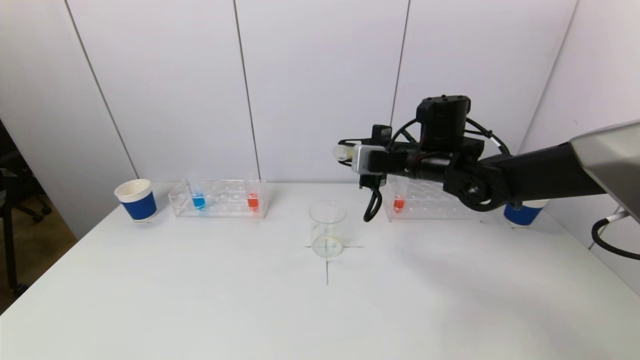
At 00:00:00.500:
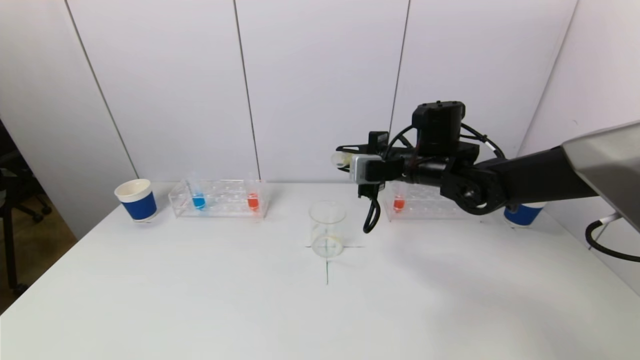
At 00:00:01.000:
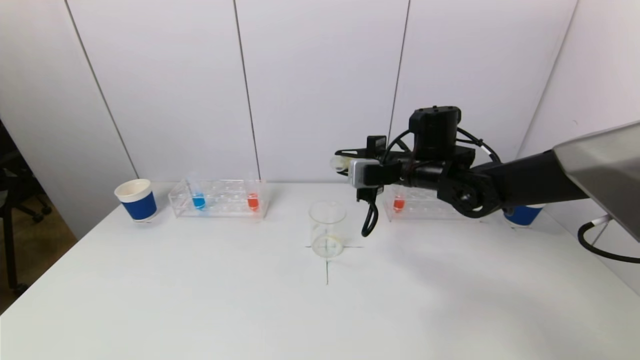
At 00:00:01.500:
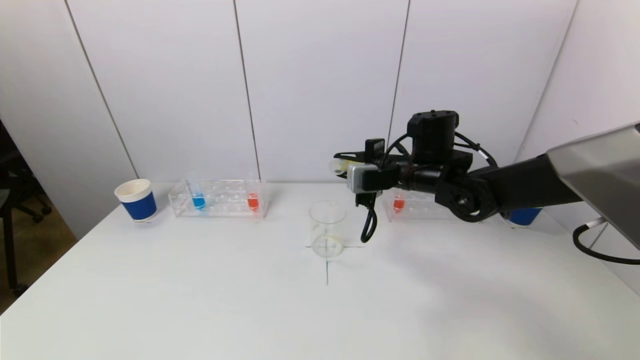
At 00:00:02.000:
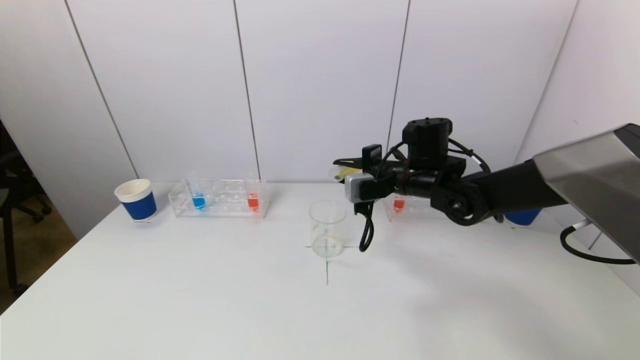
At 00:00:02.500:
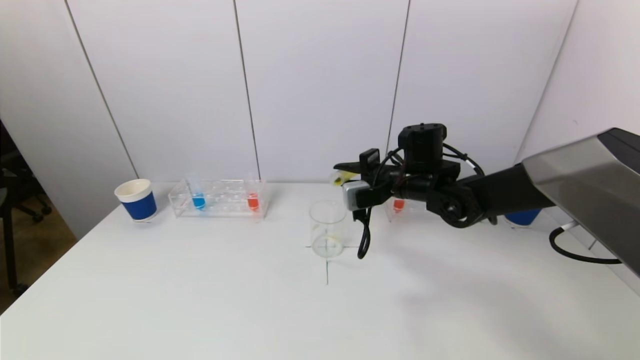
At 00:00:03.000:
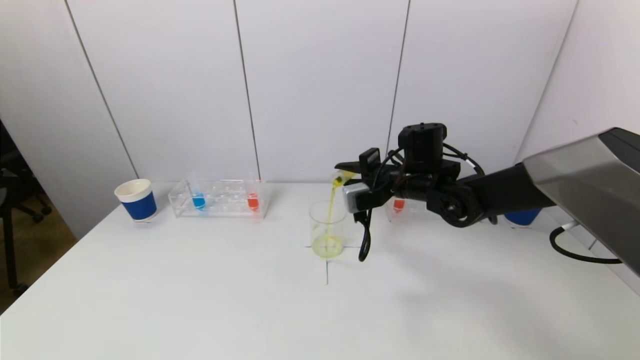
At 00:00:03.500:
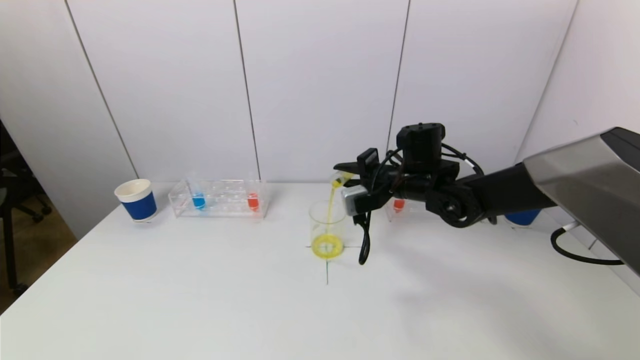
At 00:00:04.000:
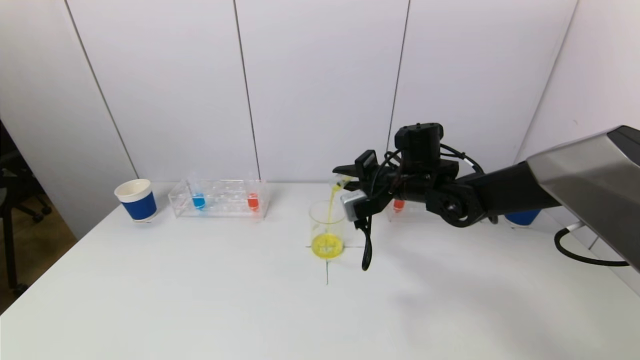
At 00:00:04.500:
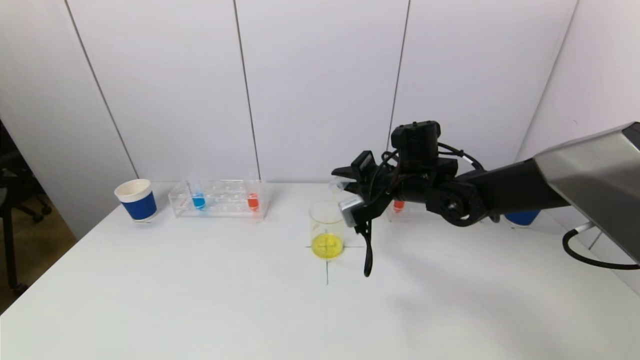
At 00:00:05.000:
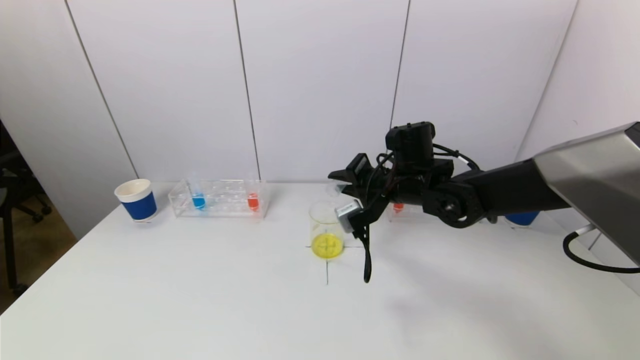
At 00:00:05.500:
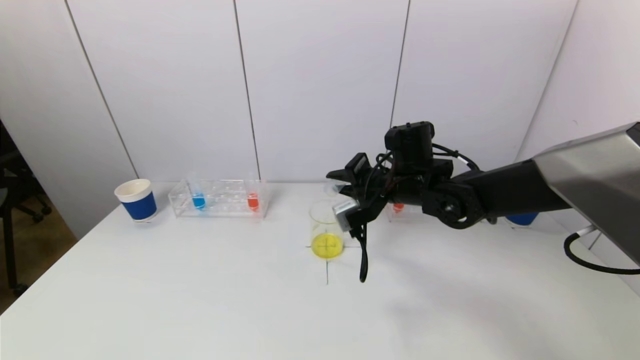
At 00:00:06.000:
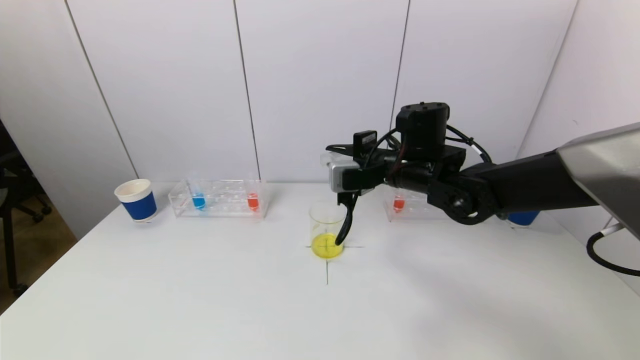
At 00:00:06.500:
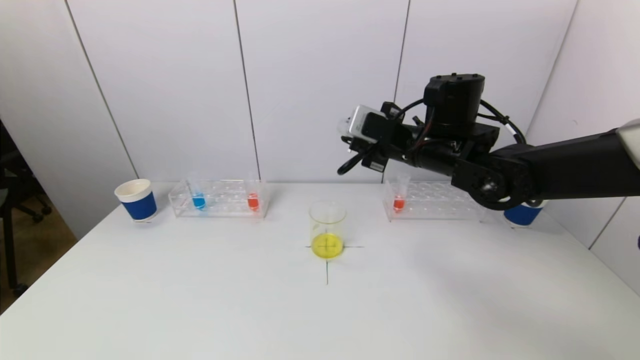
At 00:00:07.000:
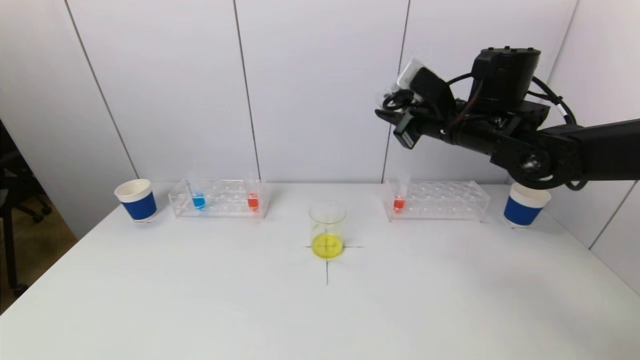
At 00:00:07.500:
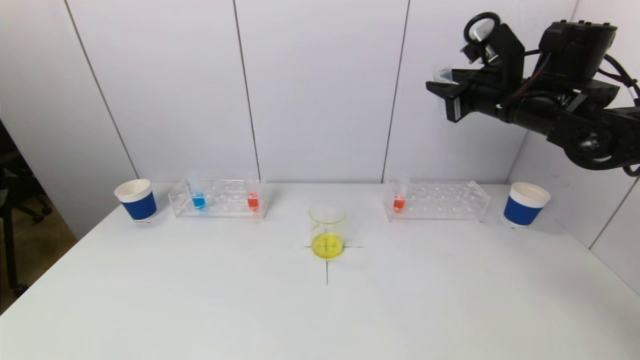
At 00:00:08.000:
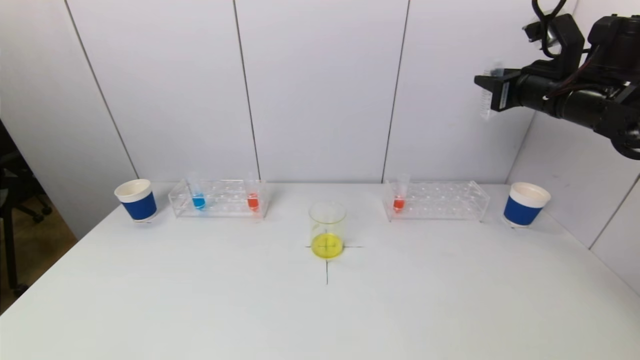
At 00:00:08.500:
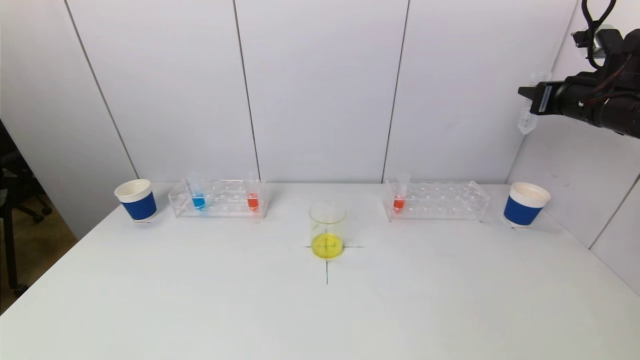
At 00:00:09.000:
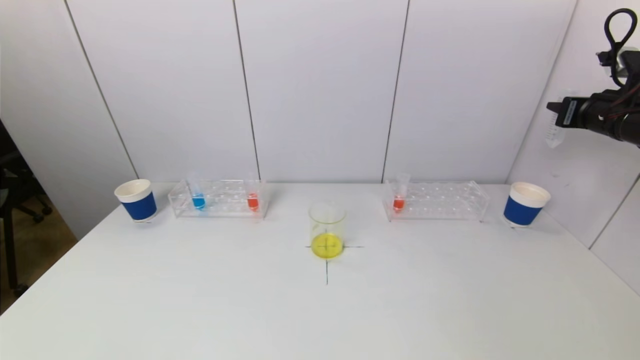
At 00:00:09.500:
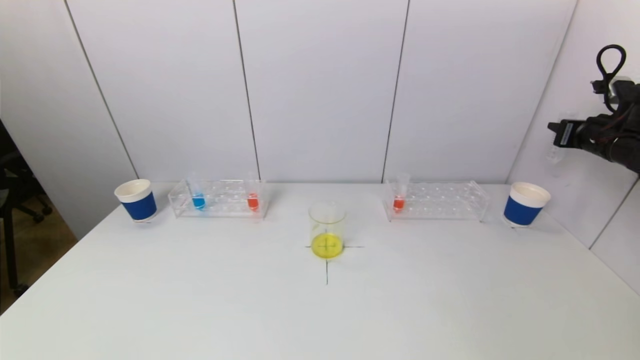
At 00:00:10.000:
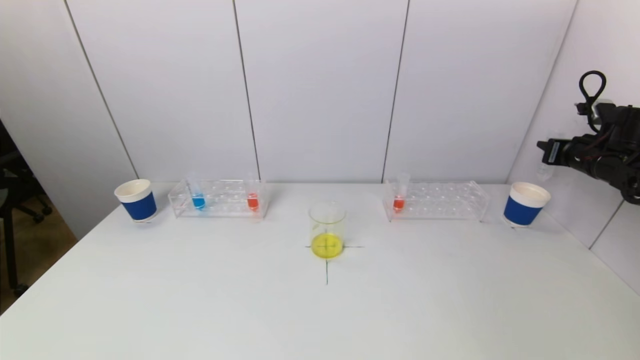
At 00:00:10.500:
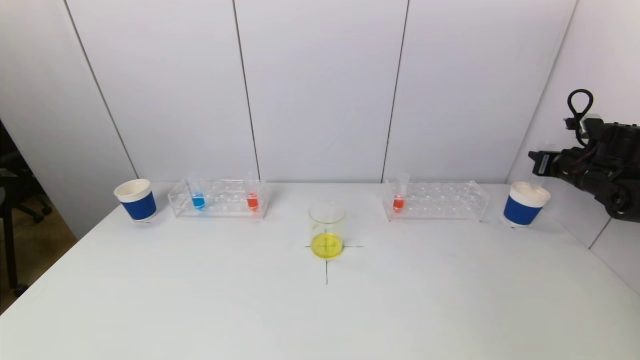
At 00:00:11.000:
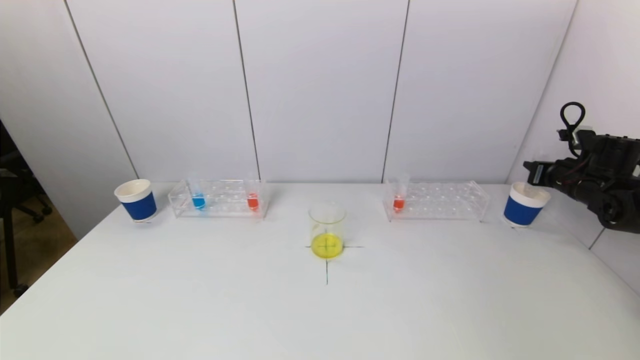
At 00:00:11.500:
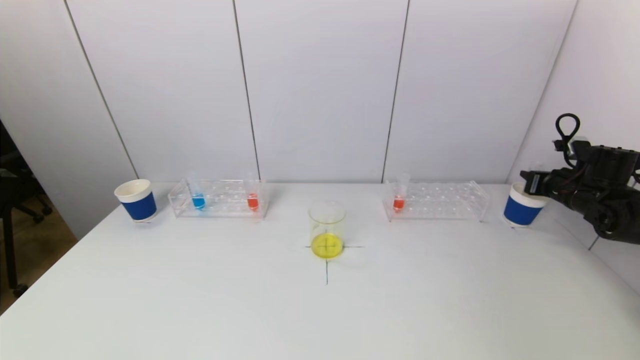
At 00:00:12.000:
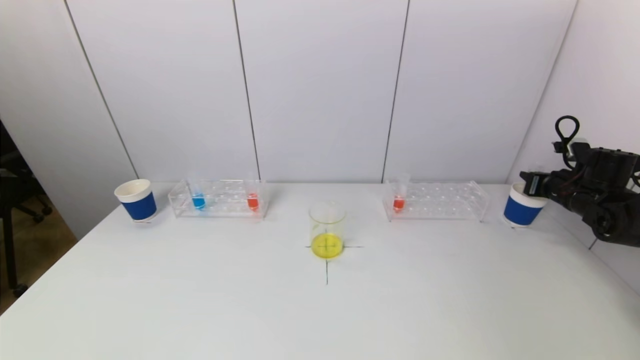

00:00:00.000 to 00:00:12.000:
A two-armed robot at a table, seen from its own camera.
Task of the whole recording: pick up a test tube with pigment on left test tube rack and a test tube with pigment on right test tube rack by grippers and pour them into the beaker.
Step, 00:00:00.000 to 00:00:05.500: Pour the yellow reagent into the graduated cylinder with the right gripper.
00:00:00.000 to 00:00:02.000: There are only small adjustments of the grippers.
00:00:02.000 to 00:00:04.000: The grippers stay close to where they were, moving slightly.
00:00:04.000 to 00:00:06.000: The right gripper moves roughly 5 cm.
00:00:06.000 to 00:00:08.000: The right gripper heads to the right and upward, covering roughly 25 cm.
00:00:08.000 to 00:00:10.000: The right gripper is displaced to the right and downward by some 20 cm.
00:00:10.000 to 00:00:12.000: The right gripper is displaced downward by about 5 cm.

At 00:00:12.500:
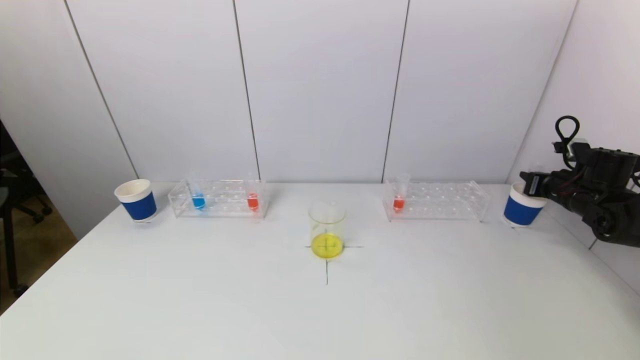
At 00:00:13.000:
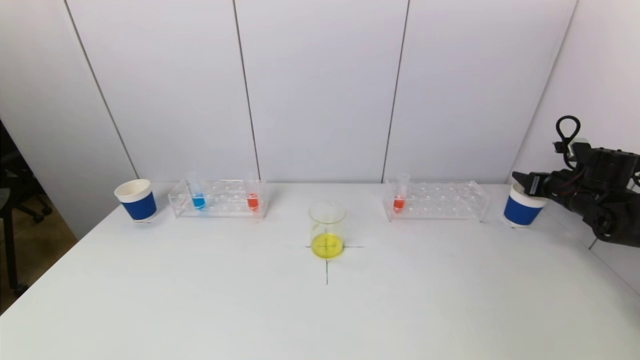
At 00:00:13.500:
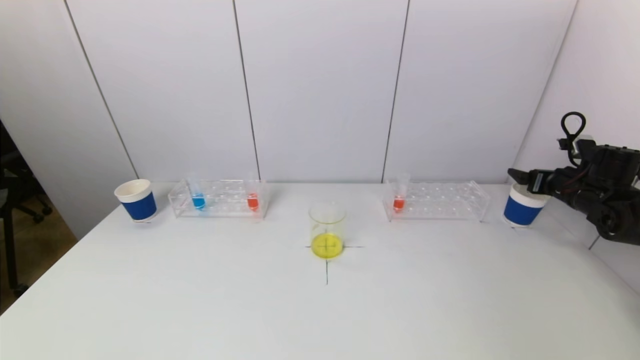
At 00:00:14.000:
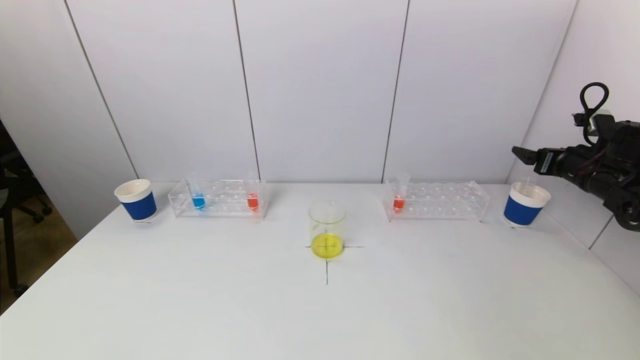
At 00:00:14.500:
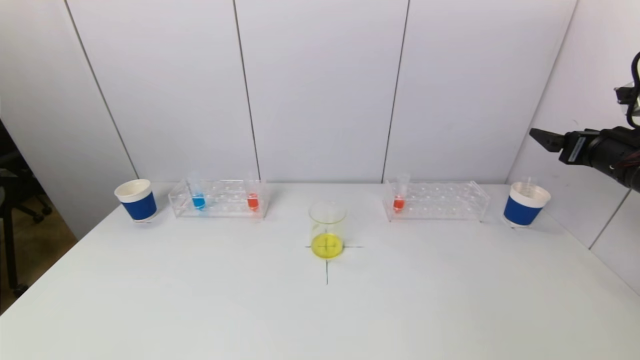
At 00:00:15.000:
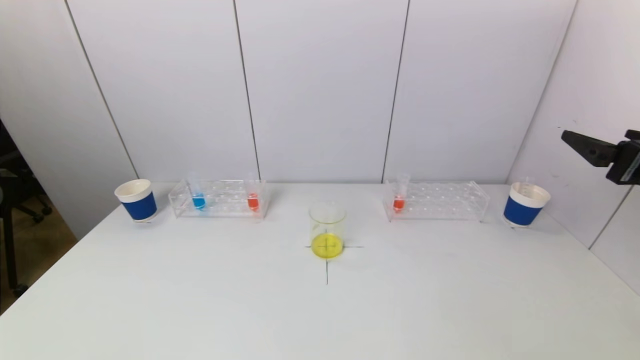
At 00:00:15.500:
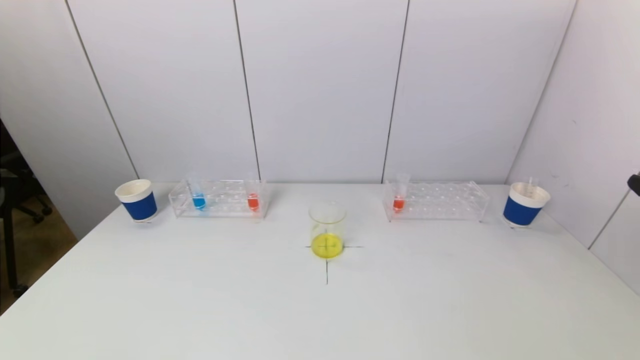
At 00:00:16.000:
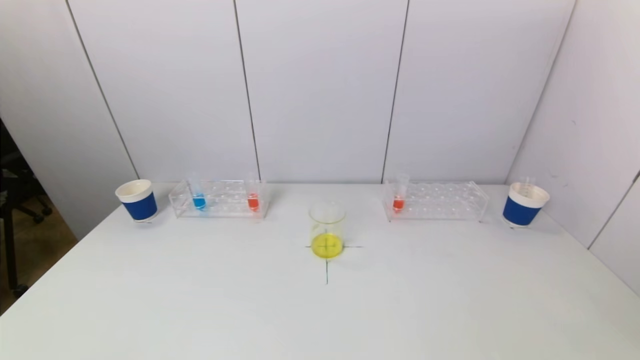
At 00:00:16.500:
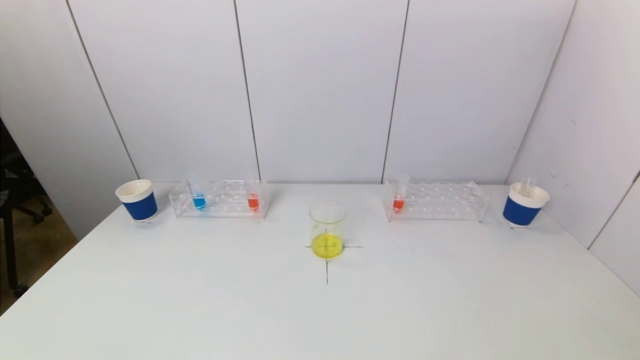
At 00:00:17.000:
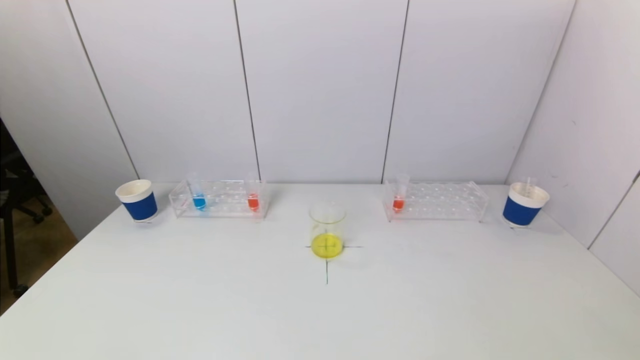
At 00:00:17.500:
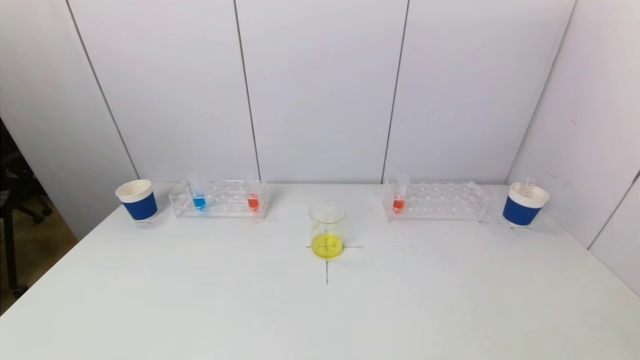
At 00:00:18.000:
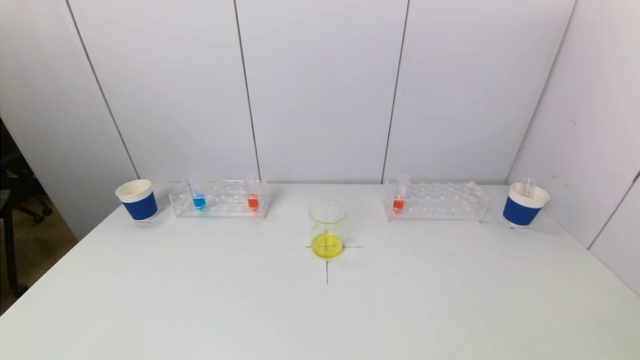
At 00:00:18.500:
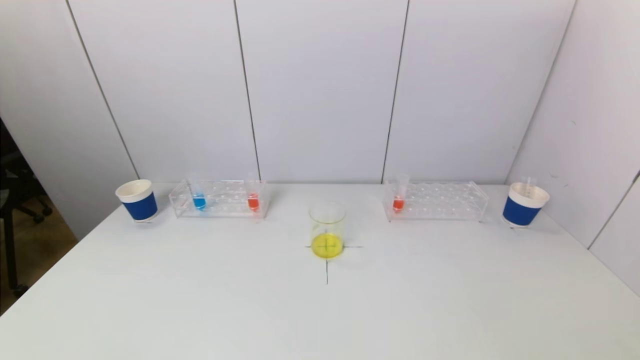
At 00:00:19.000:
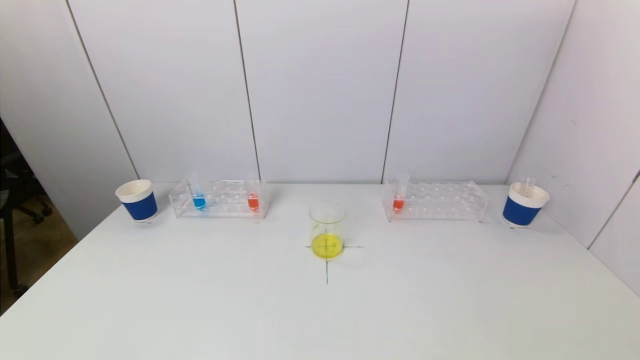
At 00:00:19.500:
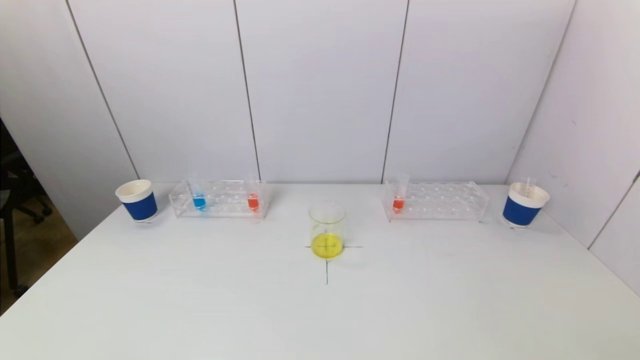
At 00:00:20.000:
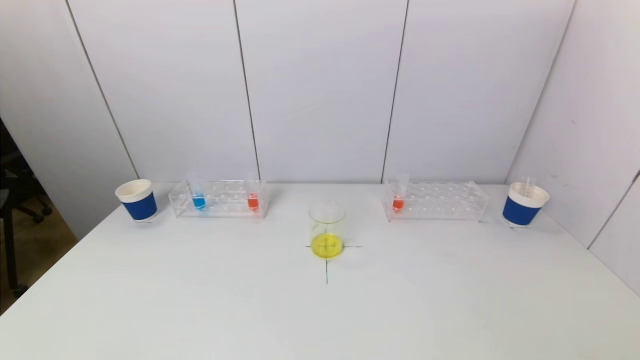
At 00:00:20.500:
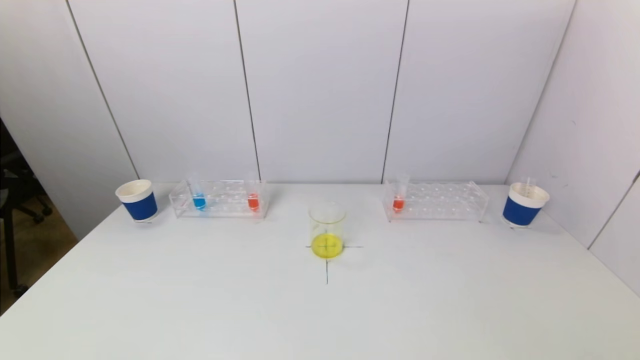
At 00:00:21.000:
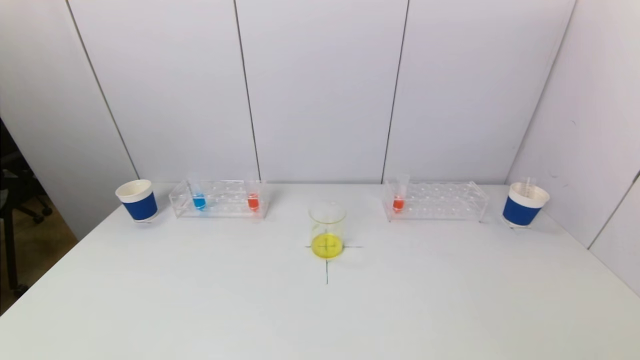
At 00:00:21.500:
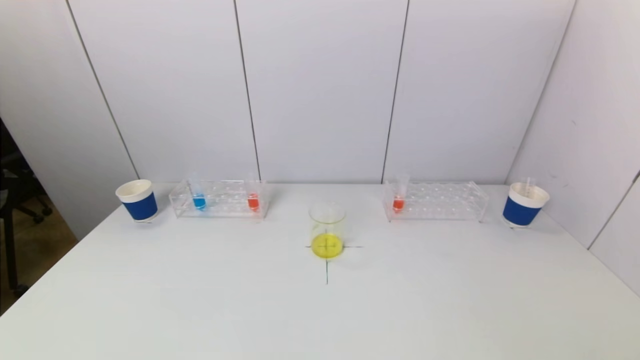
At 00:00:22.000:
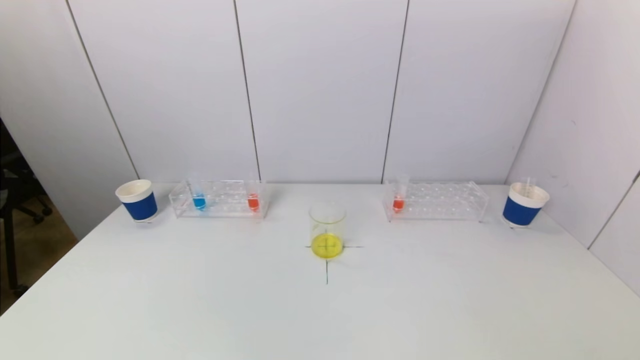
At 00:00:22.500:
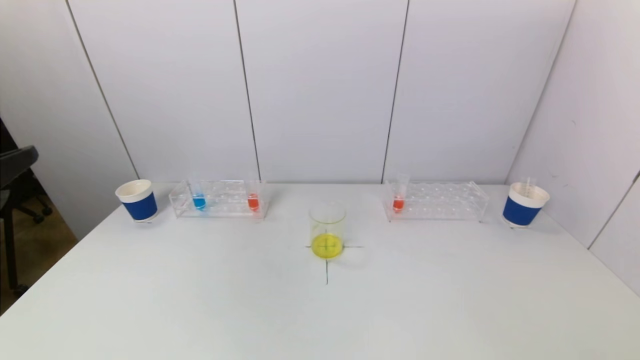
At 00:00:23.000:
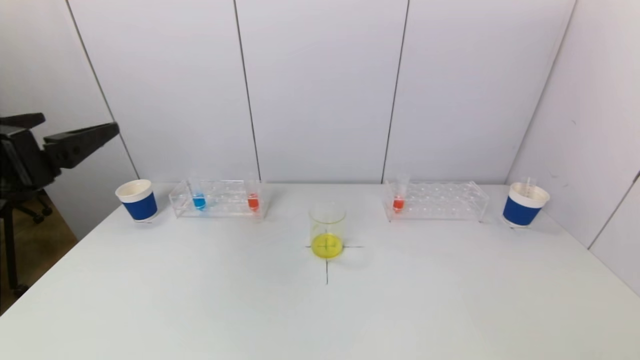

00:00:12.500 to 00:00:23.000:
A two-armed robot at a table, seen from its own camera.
Task of the whole recording: pick up a test tube with pigment on left test tube rack and a test tube with pigment on right test tube rack by grippers and pour them into the beaker.
00:00:12.500 to 00:00:14.500: The right gripper shifts roughly 15 cm upward, backward and to the left, and opens up.
00:00:14.500 to 00:00:16.500: The right gripper heads backward, covering approximately 35 cm.
00:00:21.000 to 00:00:23.000: The left gripper moves upward and forward, some 30 cm.
